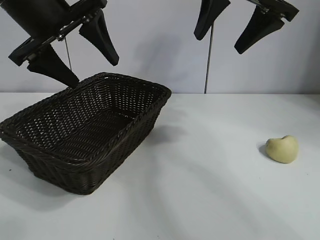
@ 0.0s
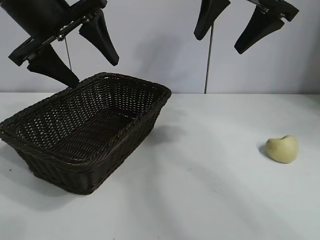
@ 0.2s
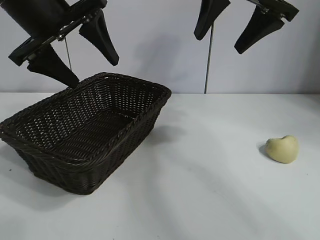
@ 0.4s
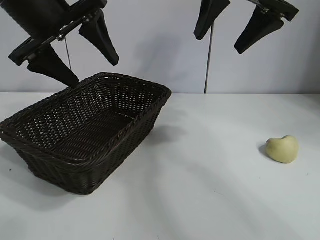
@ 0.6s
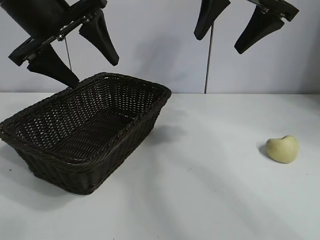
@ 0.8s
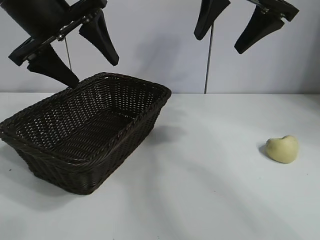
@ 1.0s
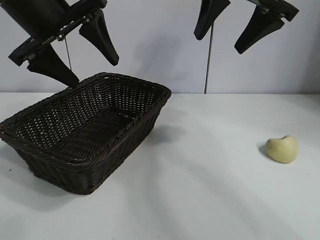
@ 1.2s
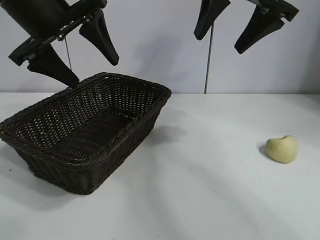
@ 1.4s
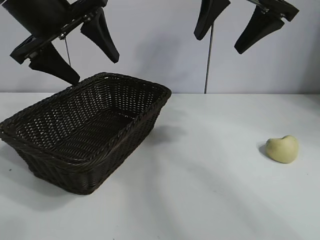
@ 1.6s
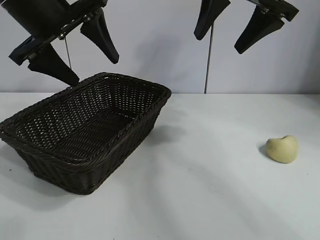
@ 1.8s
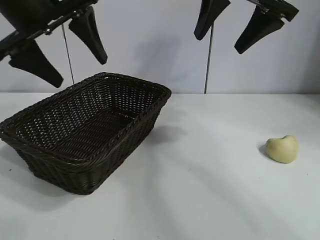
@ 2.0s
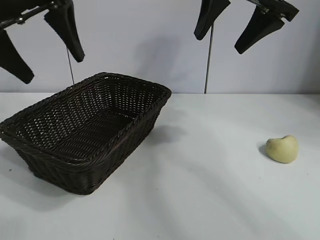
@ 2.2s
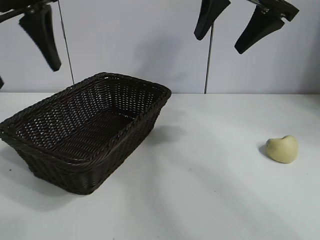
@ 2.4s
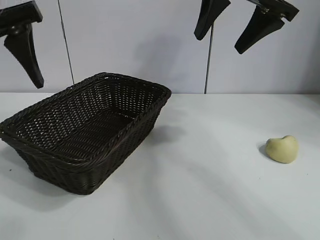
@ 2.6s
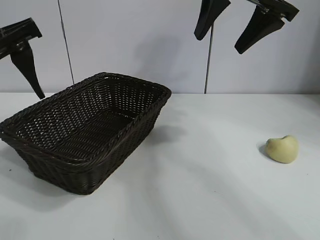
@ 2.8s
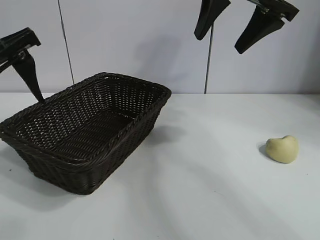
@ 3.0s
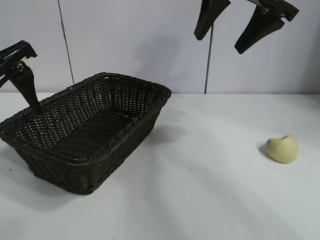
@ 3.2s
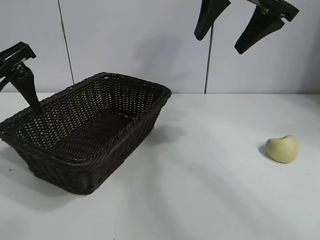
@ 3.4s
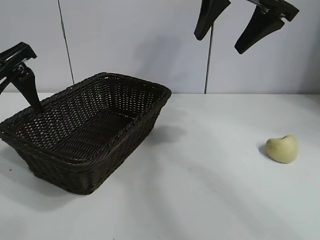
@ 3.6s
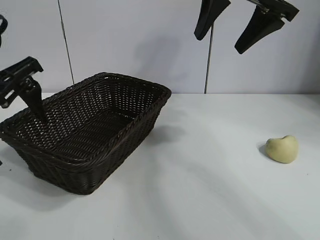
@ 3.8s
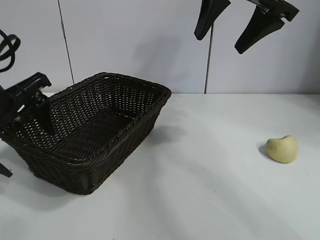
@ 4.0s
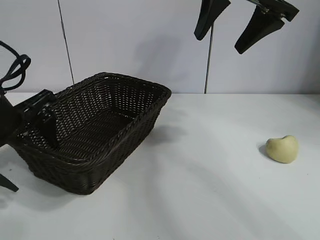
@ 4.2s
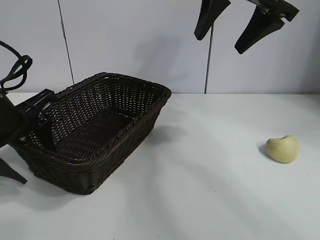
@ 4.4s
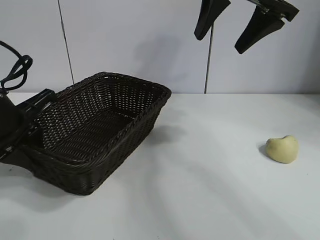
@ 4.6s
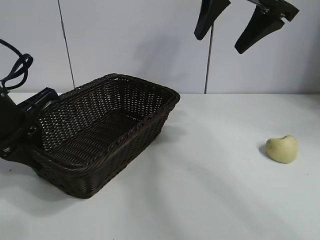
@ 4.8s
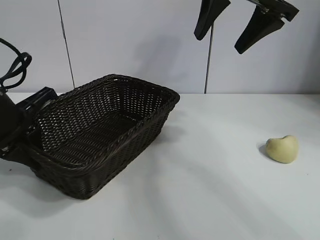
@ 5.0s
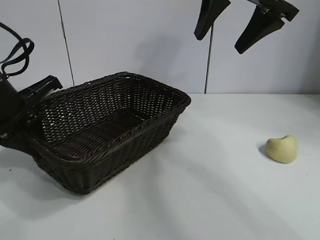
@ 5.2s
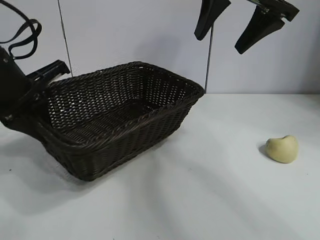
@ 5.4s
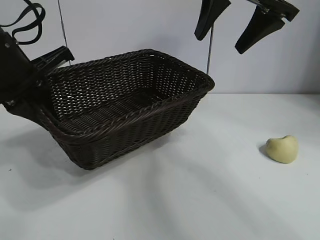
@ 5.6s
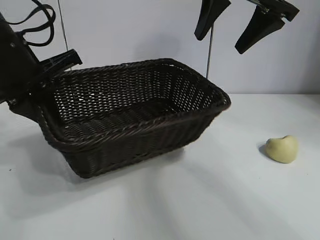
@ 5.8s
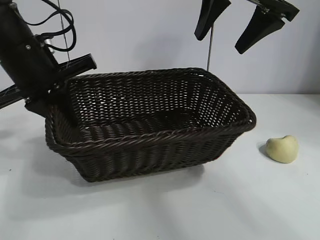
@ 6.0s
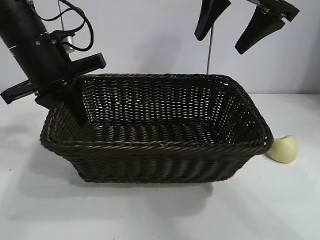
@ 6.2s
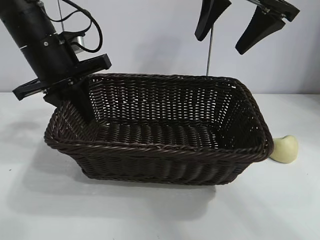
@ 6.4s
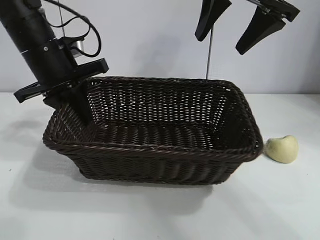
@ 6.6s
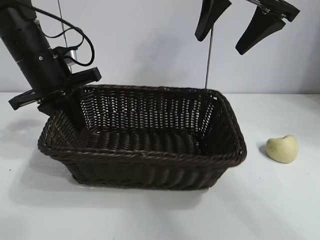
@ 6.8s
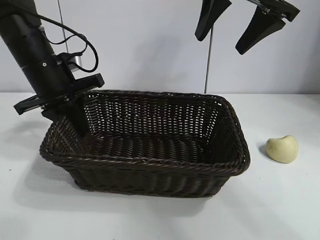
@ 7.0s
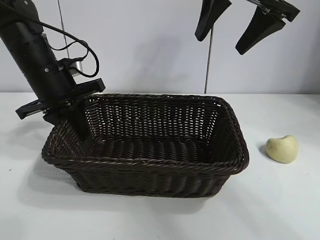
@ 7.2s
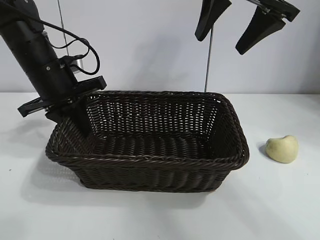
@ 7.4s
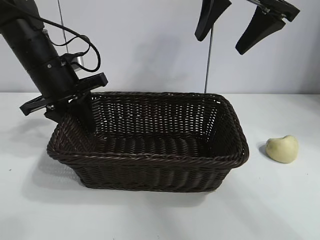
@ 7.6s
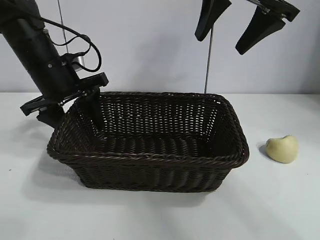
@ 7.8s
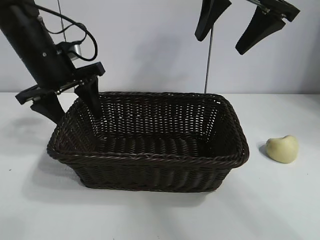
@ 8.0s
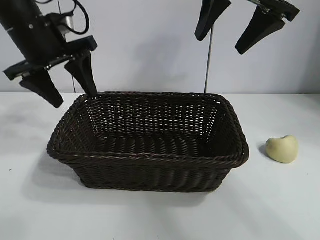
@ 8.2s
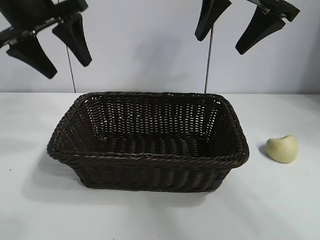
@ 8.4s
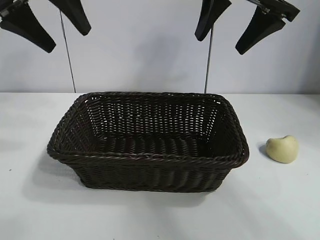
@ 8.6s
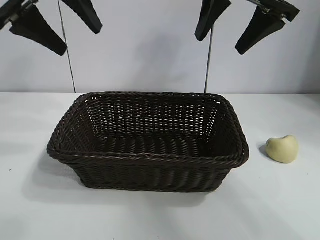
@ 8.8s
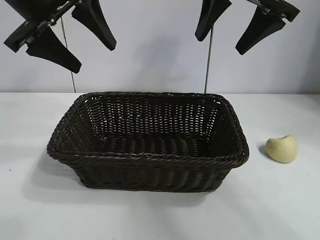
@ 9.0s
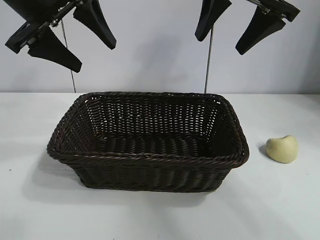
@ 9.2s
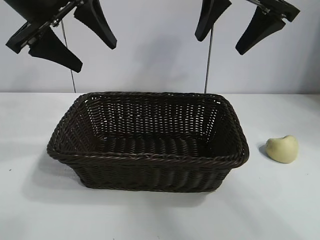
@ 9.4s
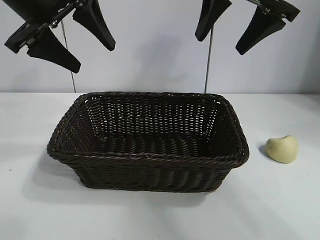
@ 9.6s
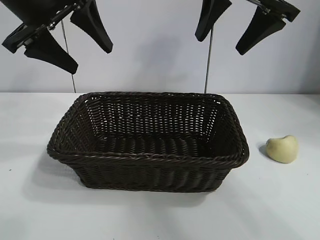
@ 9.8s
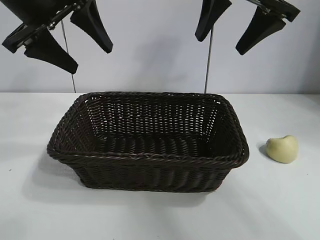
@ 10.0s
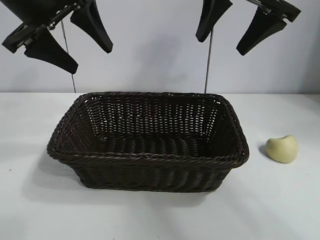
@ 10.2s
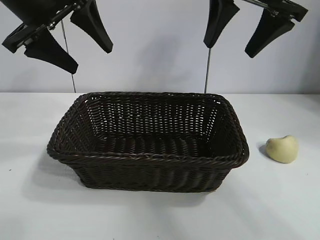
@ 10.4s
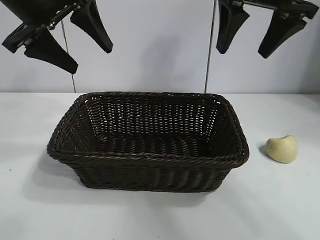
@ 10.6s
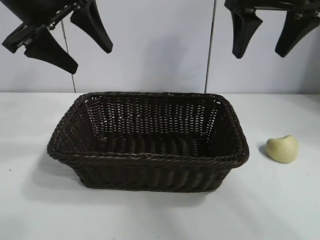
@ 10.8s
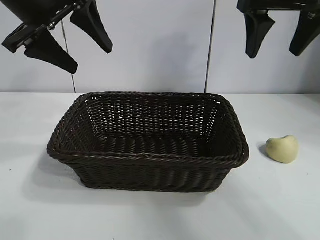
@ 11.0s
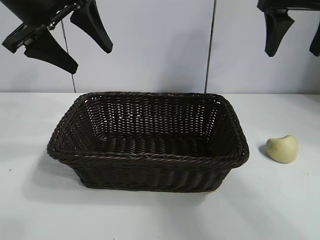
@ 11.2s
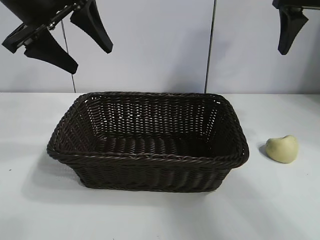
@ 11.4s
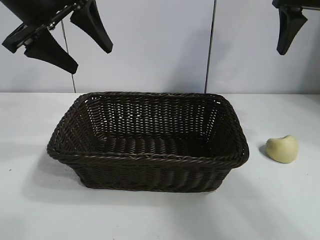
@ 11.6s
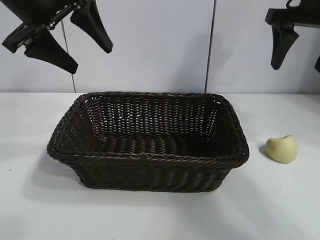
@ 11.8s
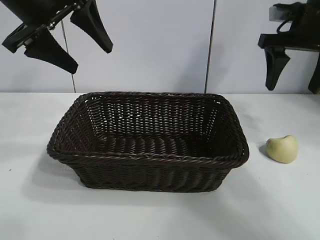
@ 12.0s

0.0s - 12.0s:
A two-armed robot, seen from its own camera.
Task of the whole recording: pick up the egg yolk pastry and put it into the basket.
Step, 1.4s - 4.6s: Grasp the basket with left gripper.
Step, 4.8s - 7.8s: Place the basket in the center of view with left gripper.

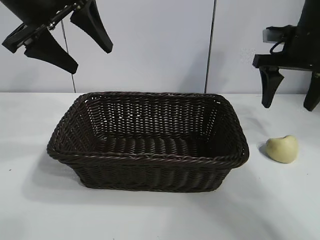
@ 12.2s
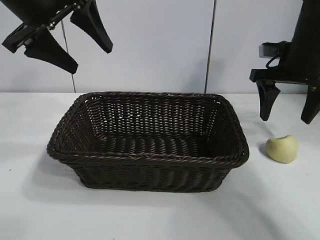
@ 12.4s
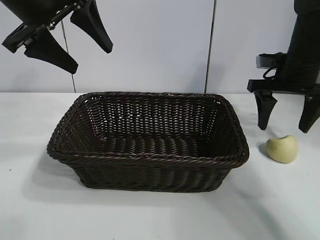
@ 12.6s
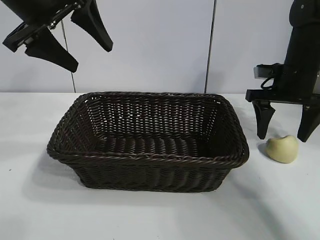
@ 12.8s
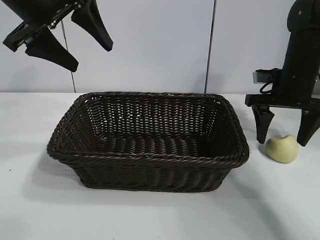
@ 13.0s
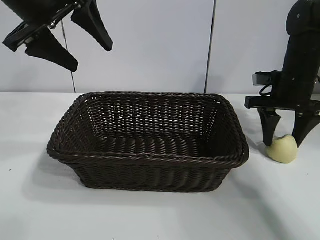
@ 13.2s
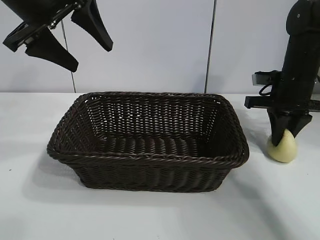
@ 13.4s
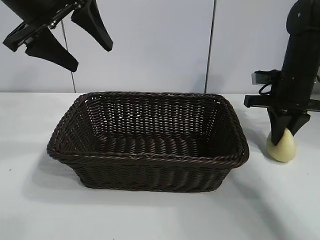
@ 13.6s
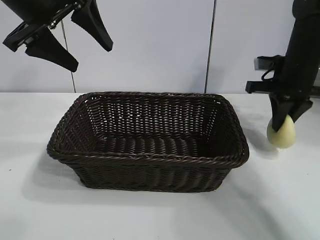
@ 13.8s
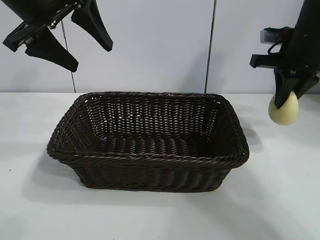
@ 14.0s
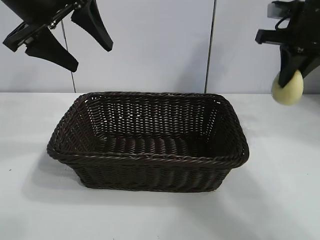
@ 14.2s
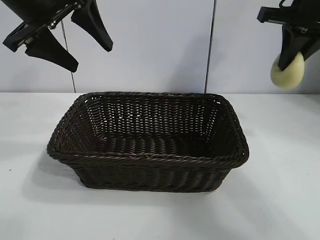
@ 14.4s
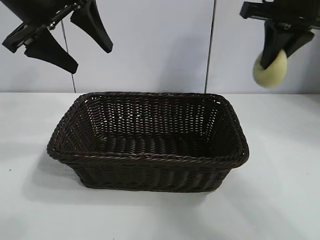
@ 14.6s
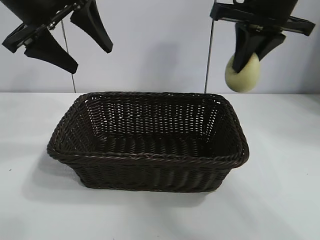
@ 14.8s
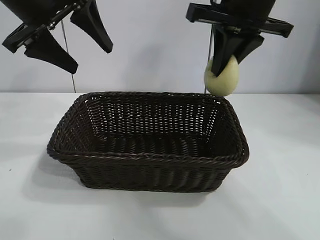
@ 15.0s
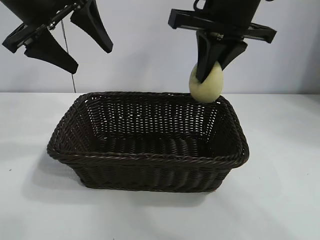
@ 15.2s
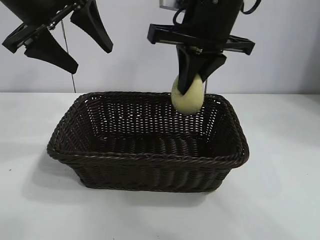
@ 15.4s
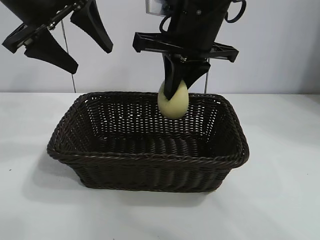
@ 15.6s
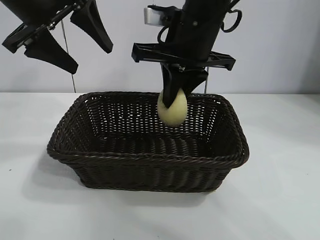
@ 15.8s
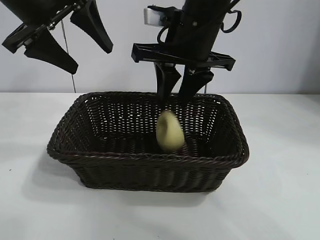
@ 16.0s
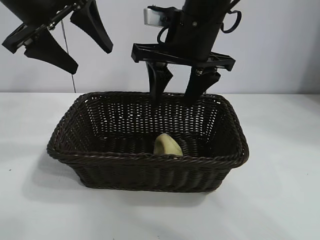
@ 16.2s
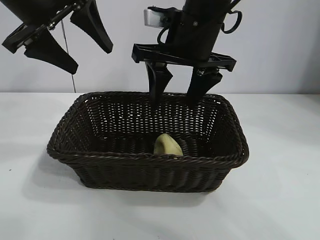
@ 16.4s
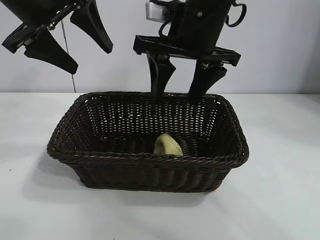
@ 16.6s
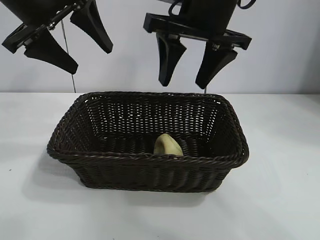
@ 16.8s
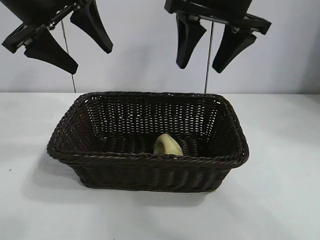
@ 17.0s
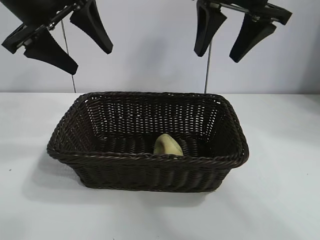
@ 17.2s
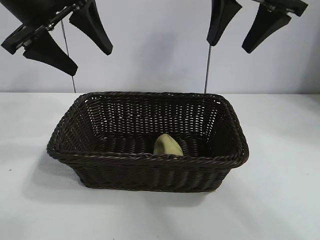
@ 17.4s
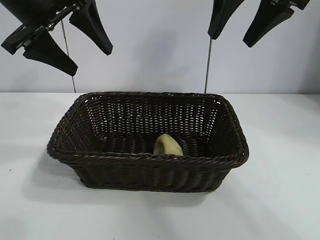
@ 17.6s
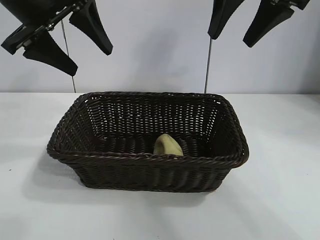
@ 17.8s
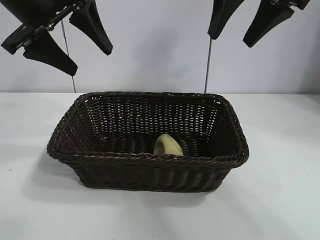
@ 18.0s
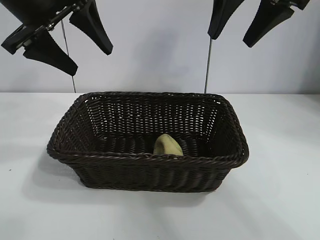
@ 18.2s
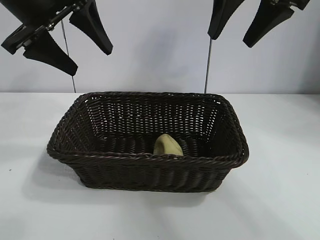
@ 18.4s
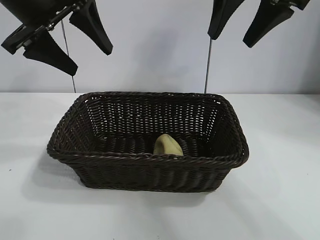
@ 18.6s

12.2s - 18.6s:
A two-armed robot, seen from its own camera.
Task of the whole recording: pick up the egg yolk pastry and put it into the basket.
Step, 13.6s - 16.2s: Place the egg yolk pastry in the basket with right gripper.
